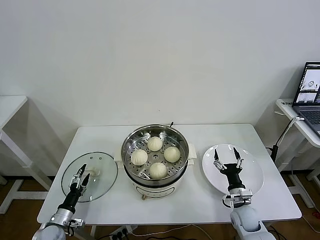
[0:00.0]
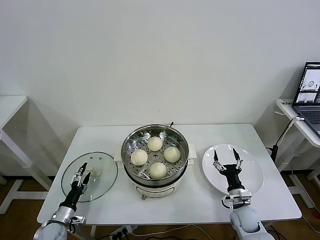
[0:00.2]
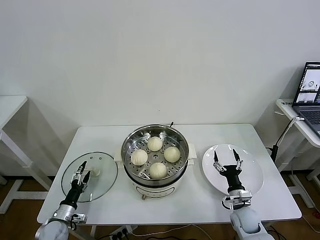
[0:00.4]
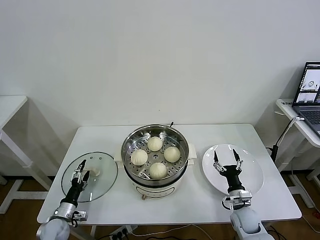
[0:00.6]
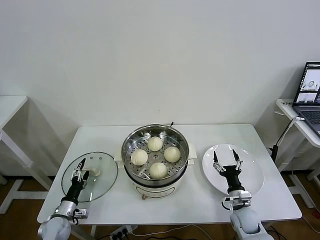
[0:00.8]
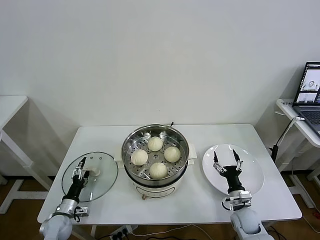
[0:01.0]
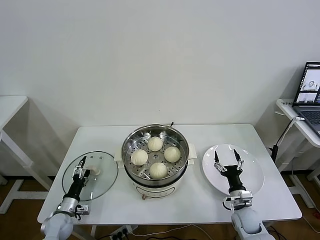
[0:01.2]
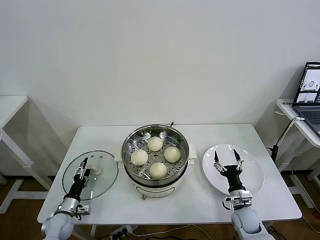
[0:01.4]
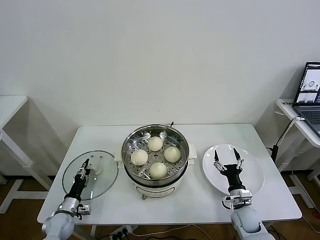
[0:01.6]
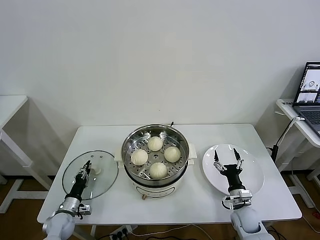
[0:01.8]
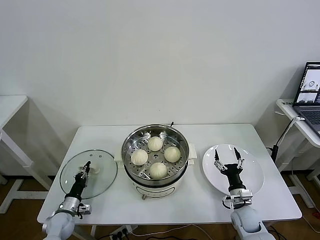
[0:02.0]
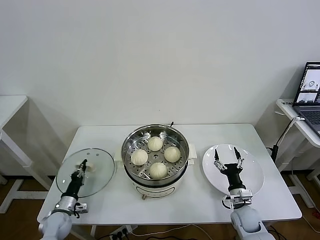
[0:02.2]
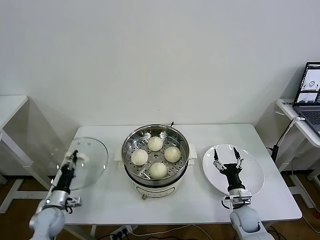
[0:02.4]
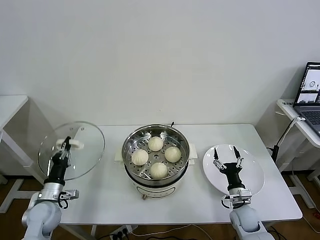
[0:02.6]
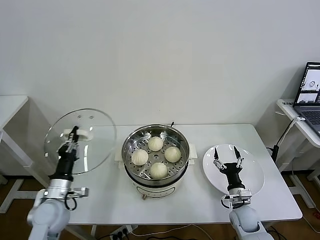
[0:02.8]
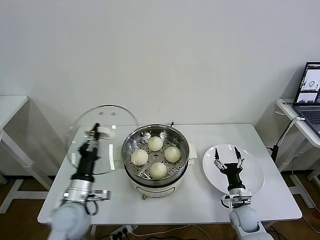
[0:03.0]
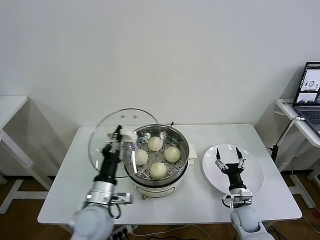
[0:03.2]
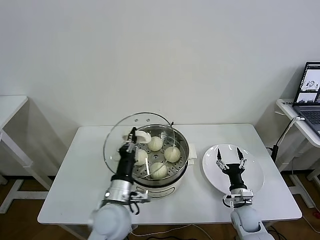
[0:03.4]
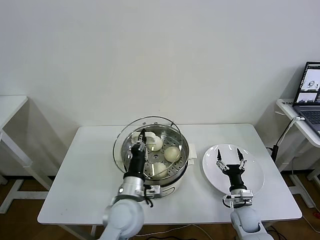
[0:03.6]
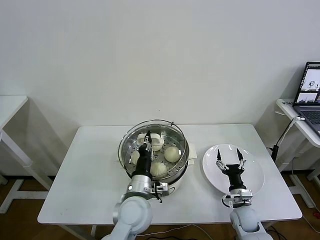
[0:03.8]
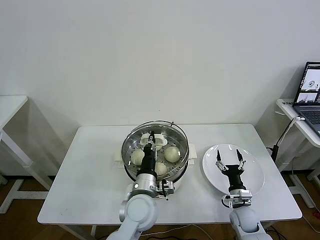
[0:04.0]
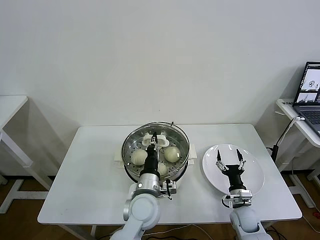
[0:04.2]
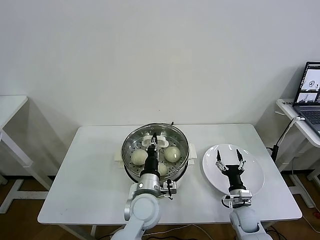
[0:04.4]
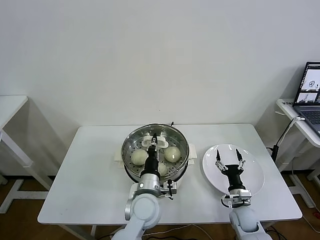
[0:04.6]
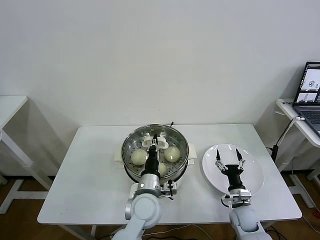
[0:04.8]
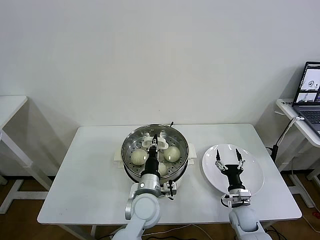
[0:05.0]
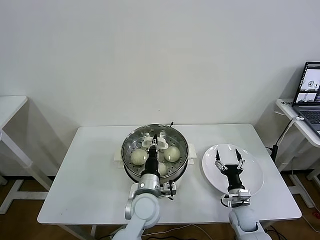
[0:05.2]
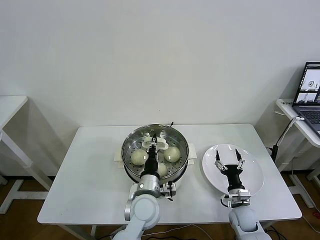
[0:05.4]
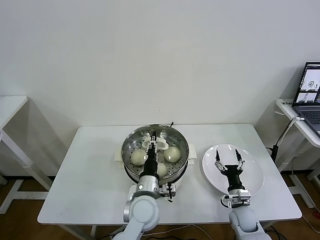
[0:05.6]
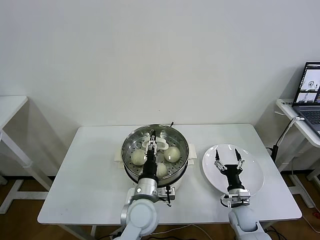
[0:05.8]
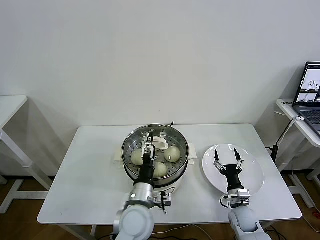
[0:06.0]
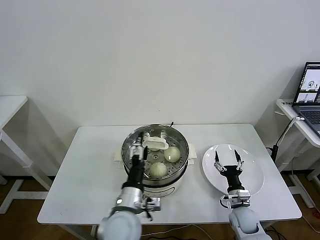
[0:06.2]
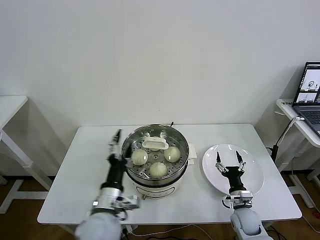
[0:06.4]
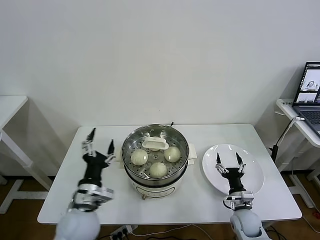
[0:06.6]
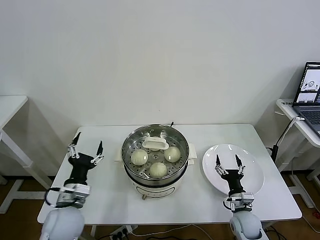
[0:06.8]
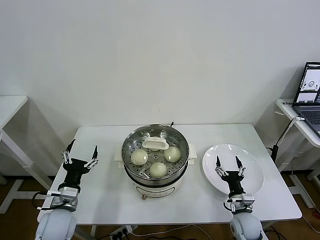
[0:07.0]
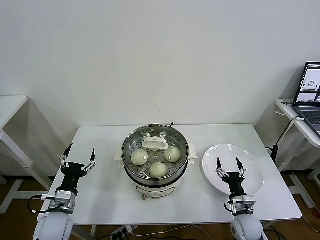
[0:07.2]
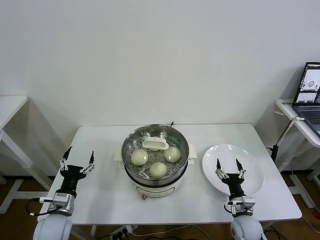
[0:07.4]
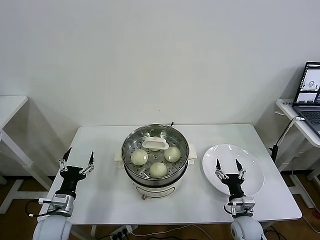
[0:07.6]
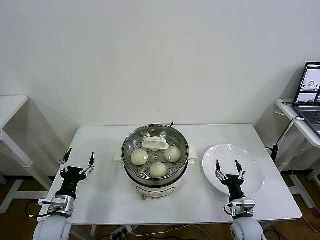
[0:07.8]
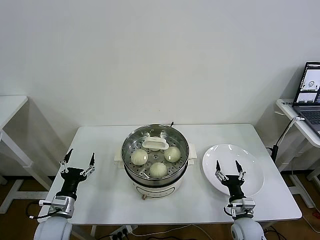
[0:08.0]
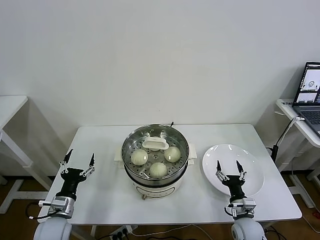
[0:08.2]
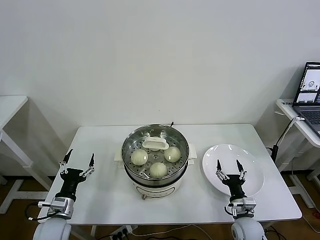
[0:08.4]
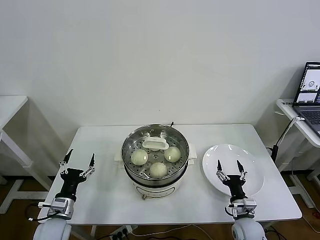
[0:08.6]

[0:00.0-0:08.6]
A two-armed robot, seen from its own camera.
Task of the whole recording: take steamed baozi put them in steamer then cover it.
Step, 0:00.0 to 0:02.0: Grasp the pot lid with left gripper.
Step, 0:02.2 to 0:05.4: Place the pot lid on the steamer with left gripper.
0:00.0 to 0:01.4: There are only small adjustments of the grippers.
0:01.4 to 0:02.8: The left gripper is displaced upward by roughly 15 cm, and closes its fingers.
0:02.8 to 0:04.4: The left gripper moves to the right, roughly 30 cm.
0:04.4 to 0:05.8: The left gripper opens up.
0:05.8 to 0:07.2: The left gripper shifts roughly 25 cm to the left, and opens its fingers.
0:07.2 to 0:08.6: The grippers stay close to where they were, moving slightly.
